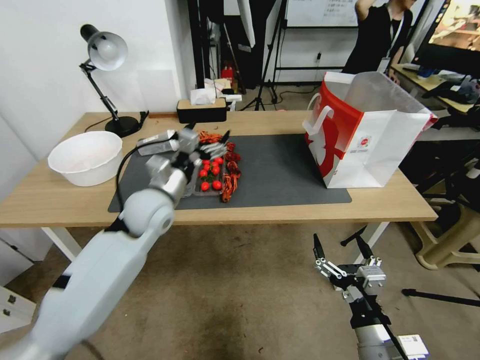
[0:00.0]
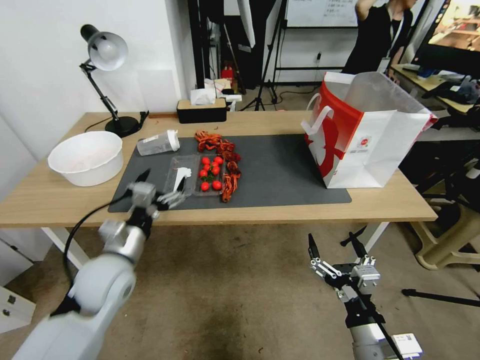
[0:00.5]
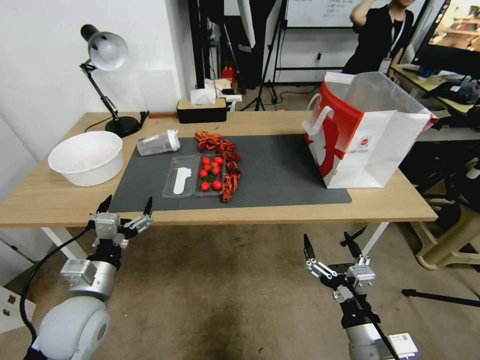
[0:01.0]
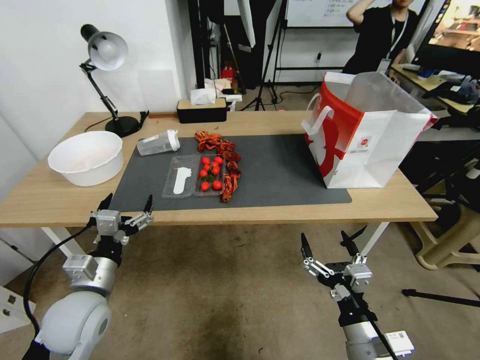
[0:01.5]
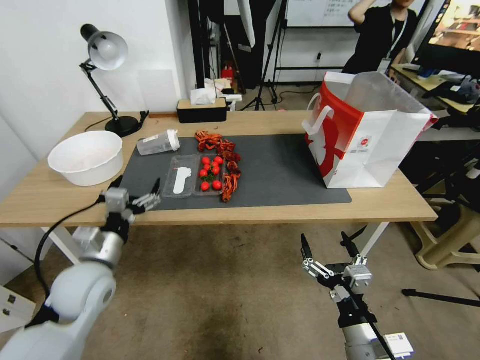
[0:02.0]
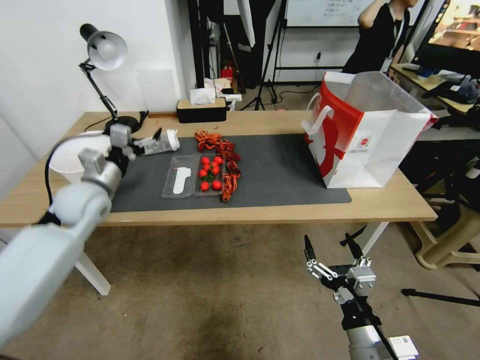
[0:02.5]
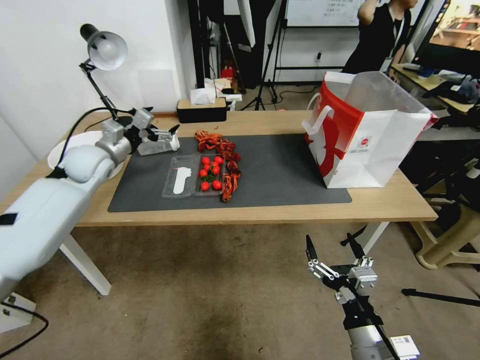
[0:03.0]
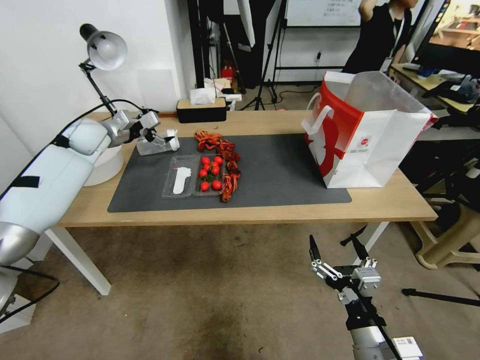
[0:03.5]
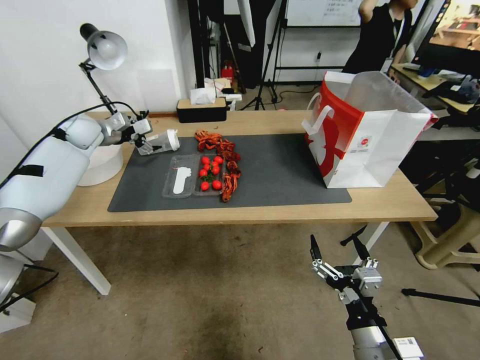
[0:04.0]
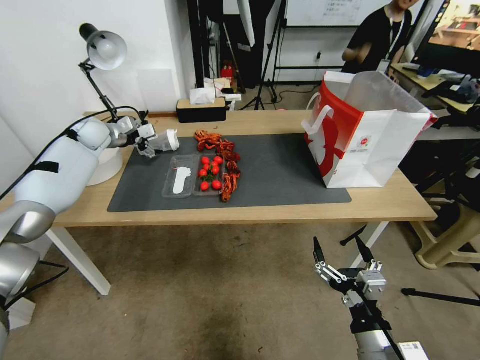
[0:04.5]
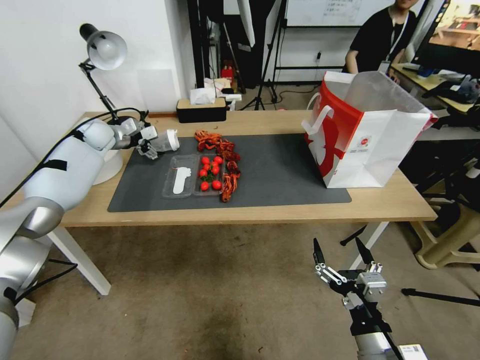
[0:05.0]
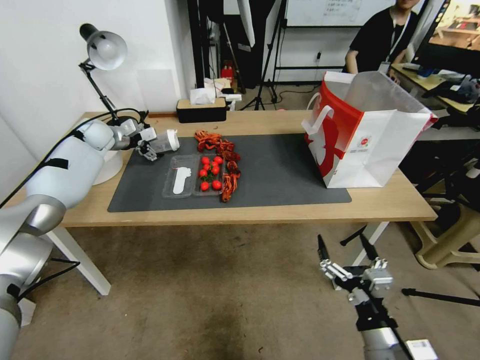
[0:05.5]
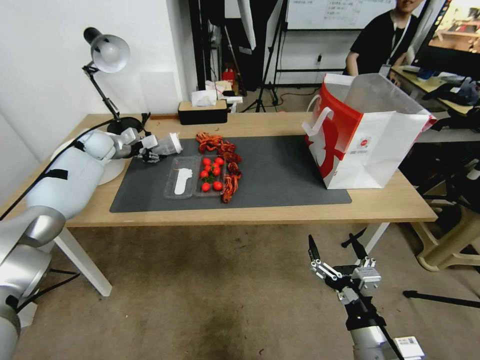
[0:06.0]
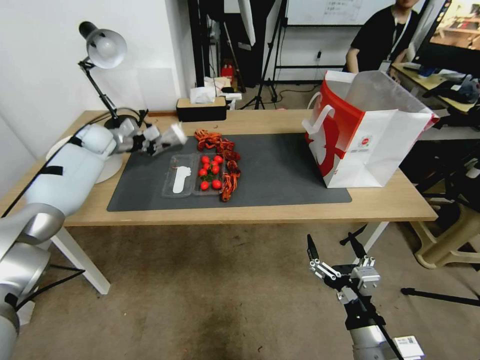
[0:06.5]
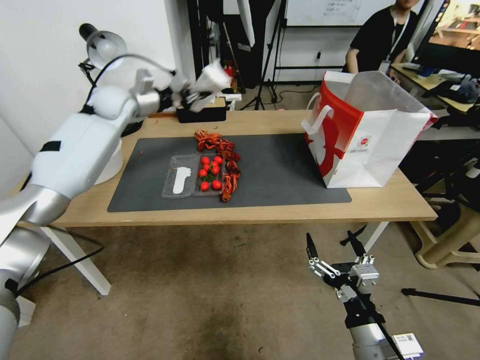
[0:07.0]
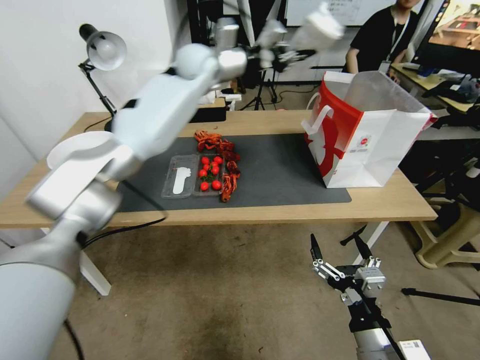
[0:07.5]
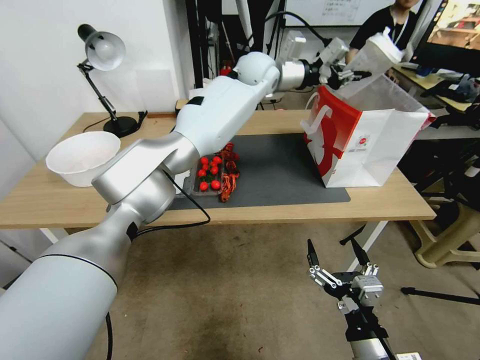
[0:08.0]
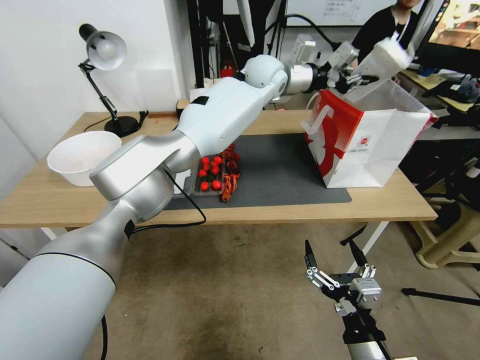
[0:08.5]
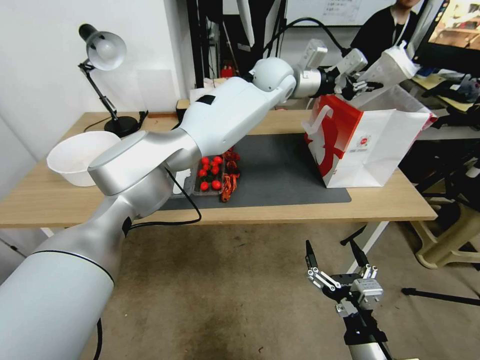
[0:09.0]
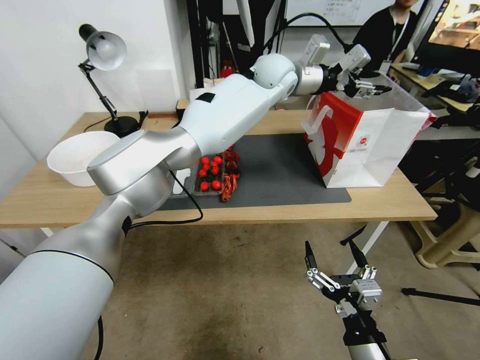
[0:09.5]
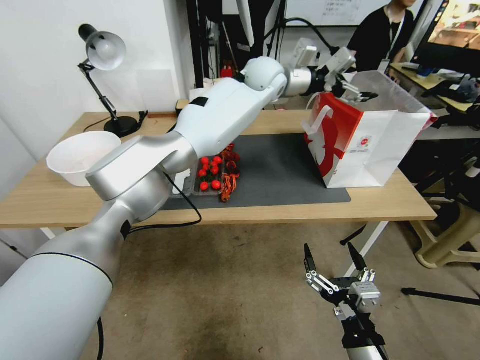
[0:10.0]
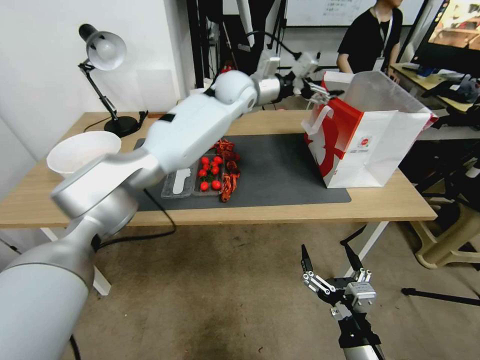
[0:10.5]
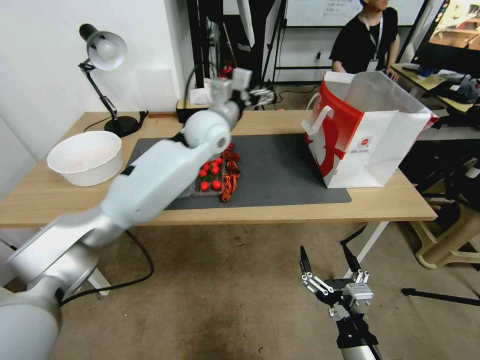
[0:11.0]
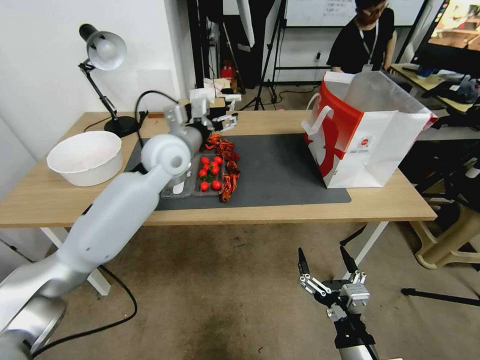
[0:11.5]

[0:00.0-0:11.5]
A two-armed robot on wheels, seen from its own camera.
0:00.0 to 0:02.0: The left gripper goes some 15 cm backward, to the left and downward.
0:02.0 to 0:04.0: The left gripper moves forward, about 35 cm.
0:04.0 to 0:06.0: The left gripper is displaced downward by some 5 cm, and closes its fingers.
0:06.0 to 0:07.5: The left gripper travels to the right and upward by approximately 40 cm, and closes up.
0:07.5 to 0:09.5: The left gripper heads to the right, covering roughly 15 cm, and opens its fingers.
0:09.5 to 0:11.5: The left gripper moves to the left, backward and downward, some 30 cm, and opens up.

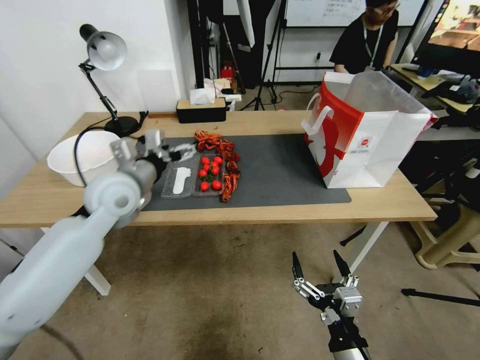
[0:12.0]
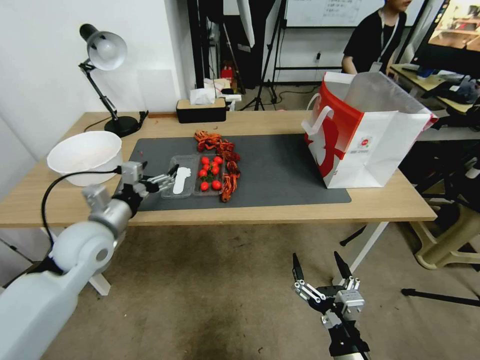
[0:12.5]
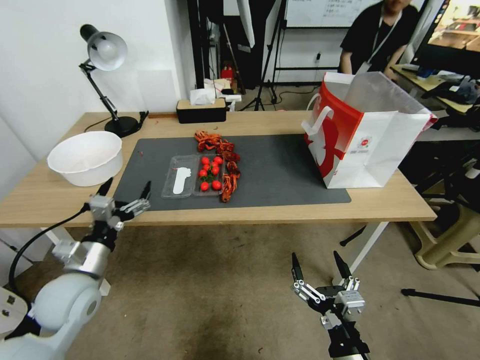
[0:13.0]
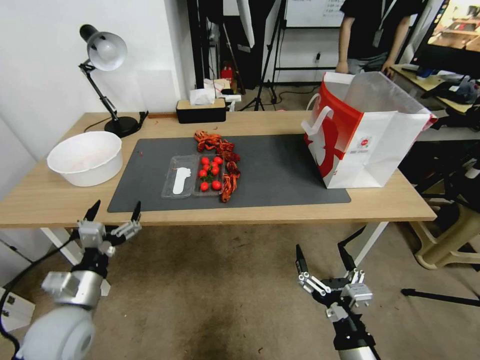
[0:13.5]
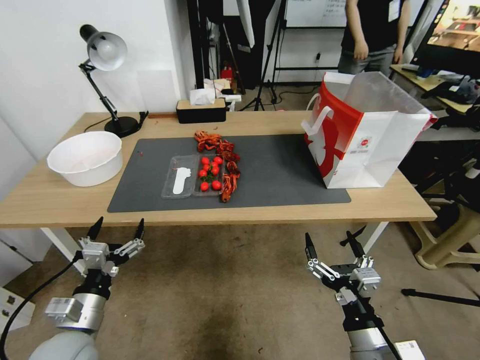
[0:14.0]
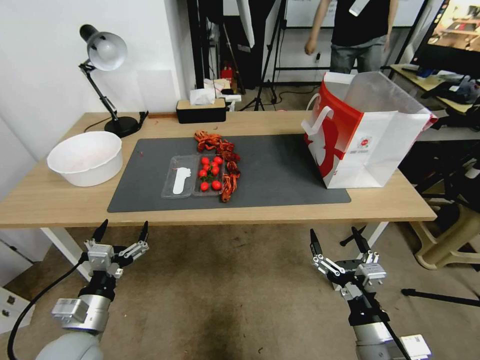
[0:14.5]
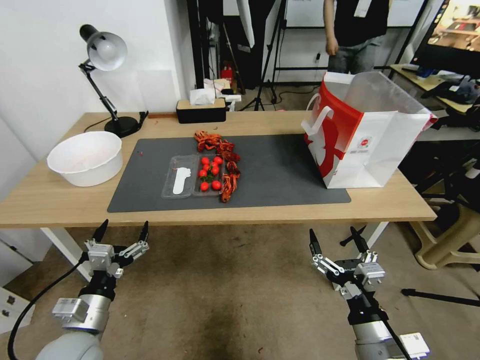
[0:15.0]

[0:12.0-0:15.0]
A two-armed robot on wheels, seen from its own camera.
0:12.0 to 0:13.5: The left gripper is displaced backward, downward and to the left by some 20 cm.
0:13.5 to 0:15.0: The right gripper moves roughly 5 cm. Meanwhile the left gripper travels backward by roughly 10 cm.

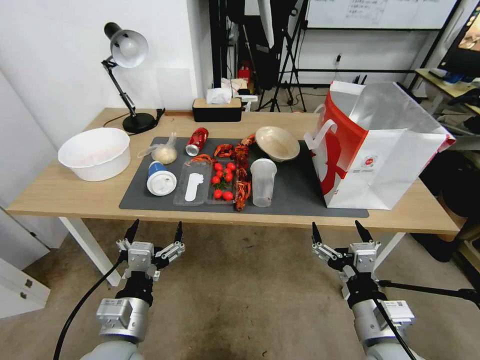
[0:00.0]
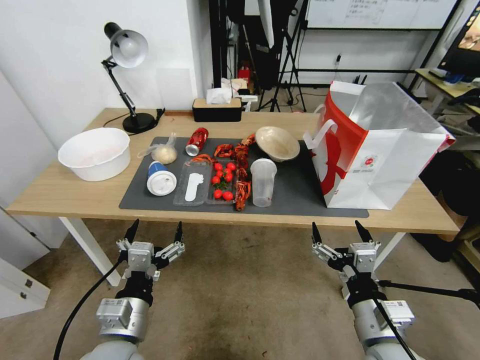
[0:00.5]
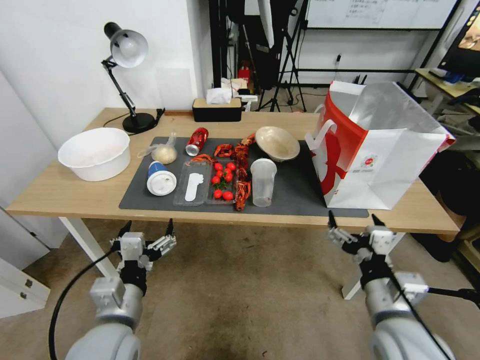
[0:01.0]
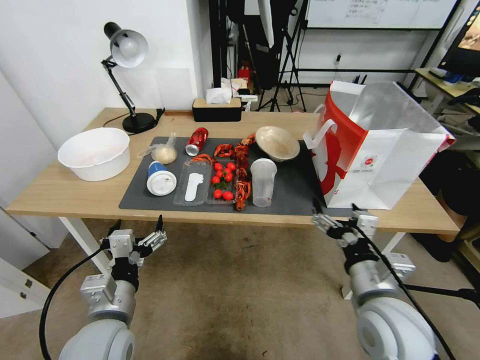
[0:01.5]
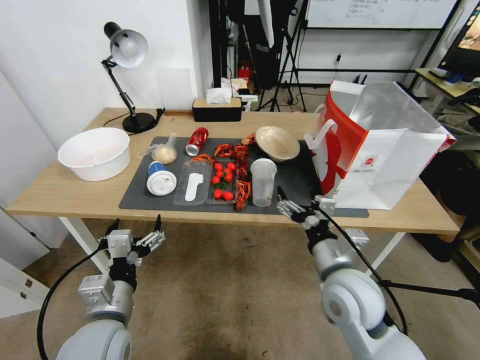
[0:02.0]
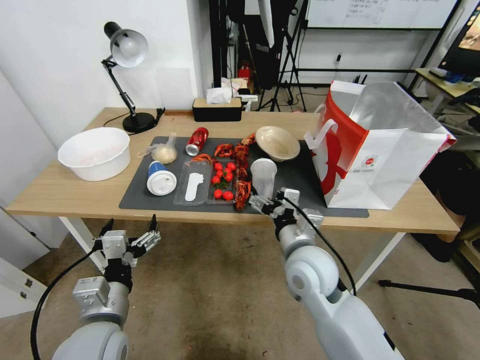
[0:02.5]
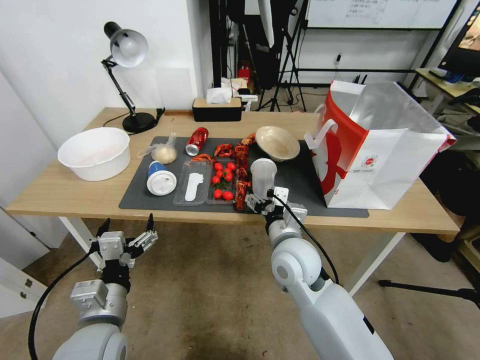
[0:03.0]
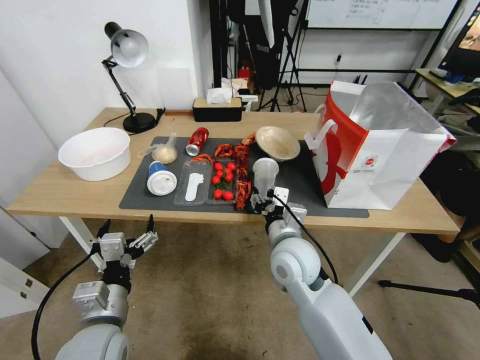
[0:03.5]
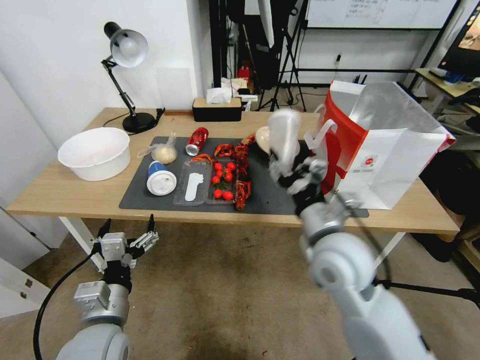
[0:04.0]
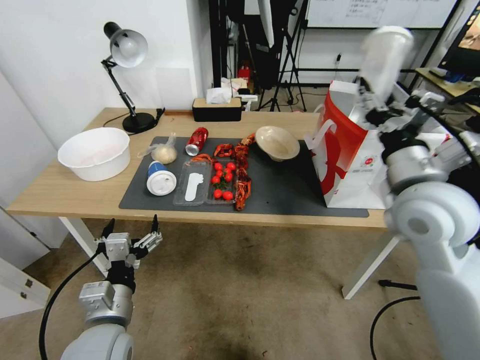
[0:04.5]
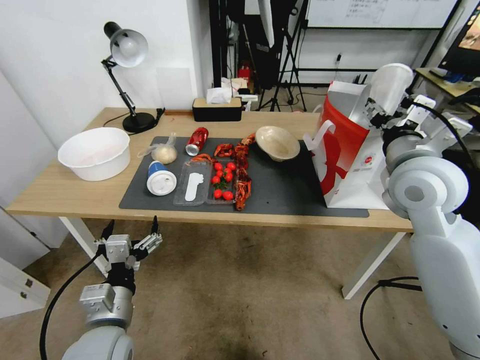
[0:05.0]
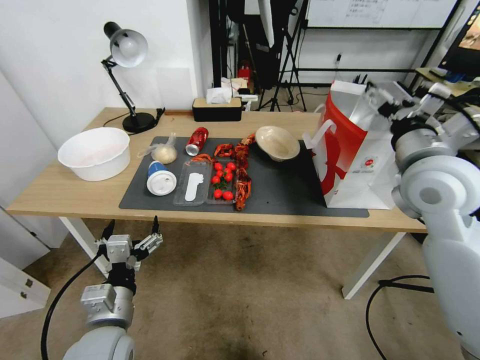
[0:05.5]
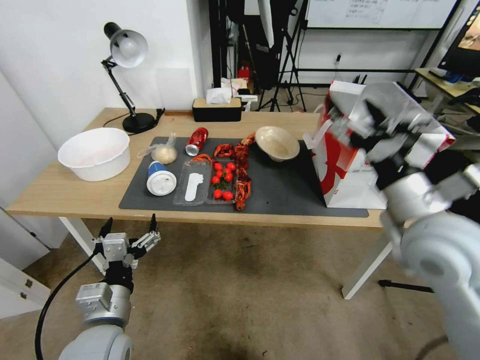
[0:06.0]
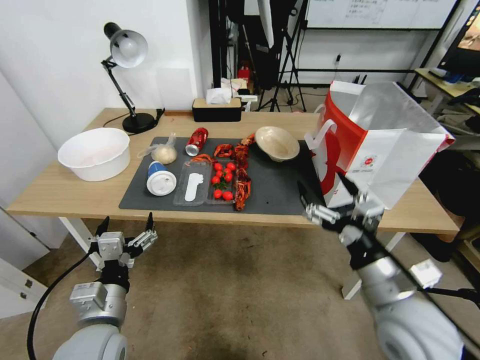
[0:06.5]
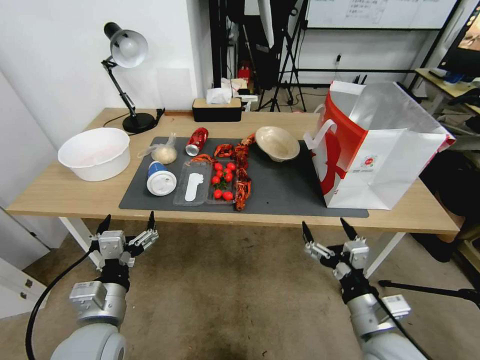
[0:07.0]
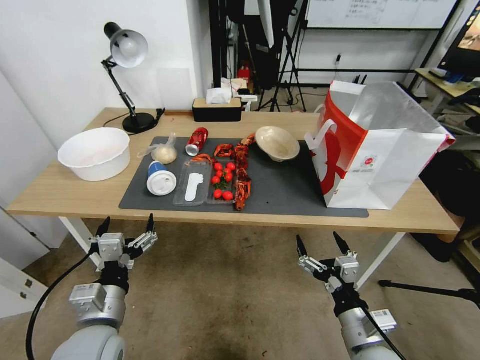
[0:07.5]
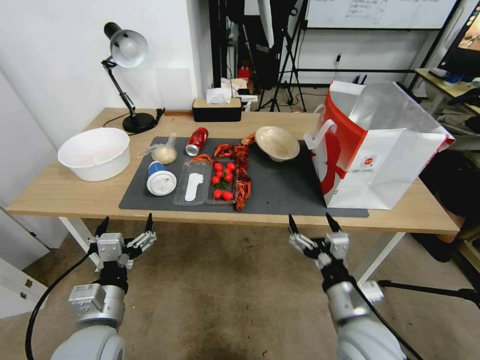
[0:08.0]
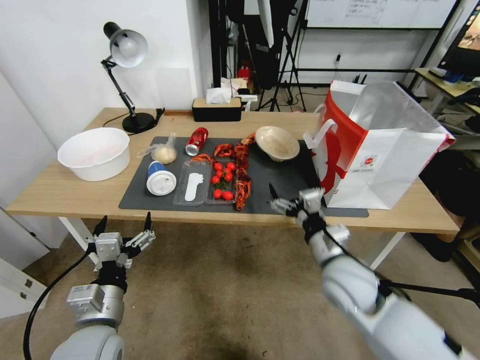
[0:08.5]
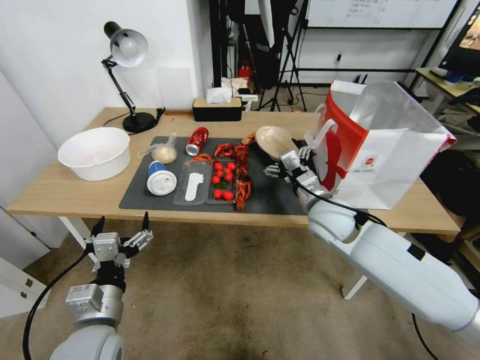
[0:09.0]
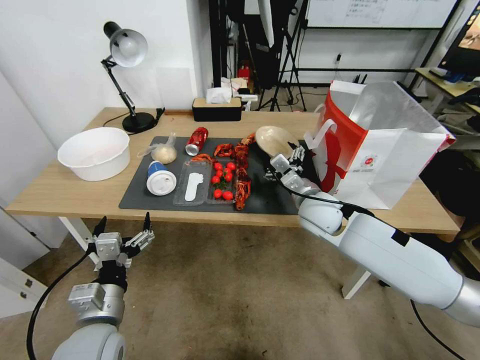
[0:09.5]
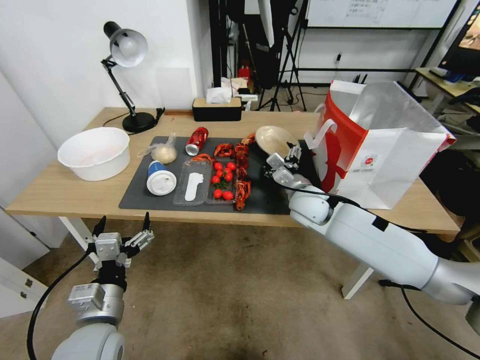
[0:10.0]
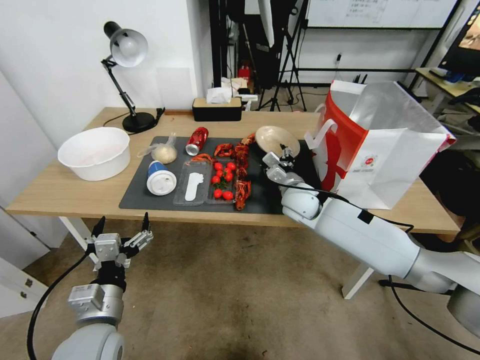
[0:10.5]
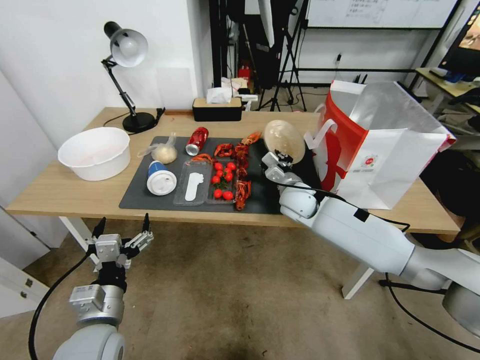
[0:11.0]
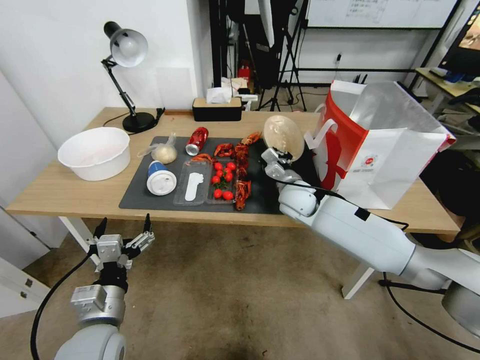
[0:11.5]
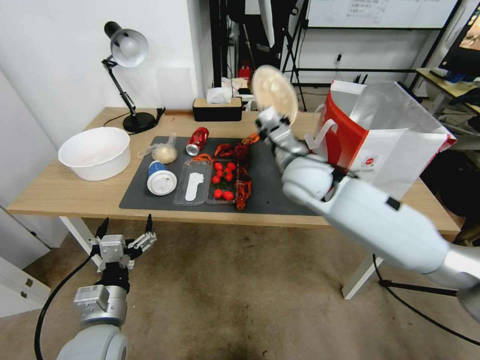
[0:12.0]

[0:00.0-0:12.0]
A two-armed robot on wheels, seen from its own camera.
0:02.0 to 0:04.0: The right gripper heads upward, covering approximately 5 cm, moves some 10 cm to the left and comes back, and closes.
0:04.0 to 0:06.0: The right gripper travels to the right and upward by roughly 15 cm, and opens.
0:06.0 to 0:08.0: The right gripper shifts about 20 cm downward and backward.
0:08.0 to 0:10.0: The right gripper shifts approximately 25 cm forward.
0:10.0 to 0:12.0: The right gripper travels upward by roughly 10 cm, and closes up.
